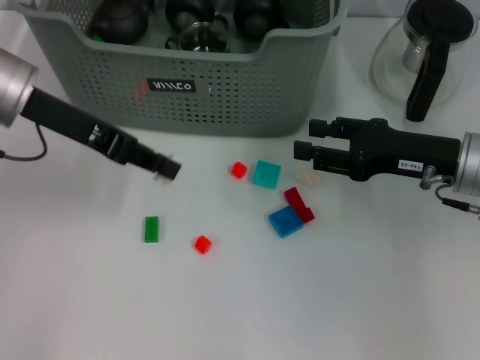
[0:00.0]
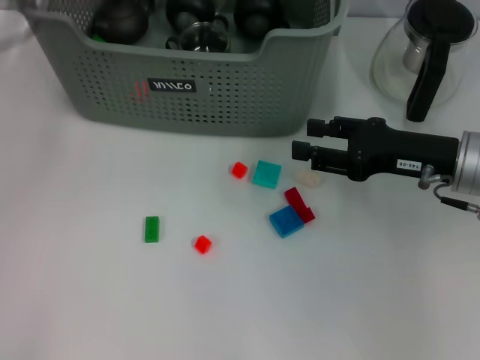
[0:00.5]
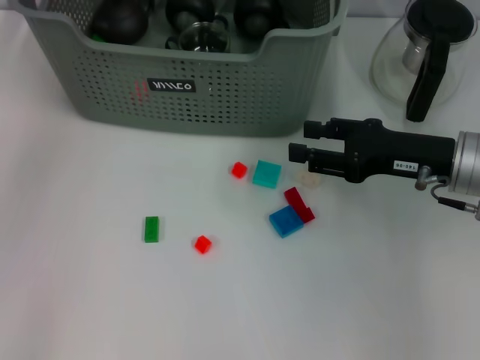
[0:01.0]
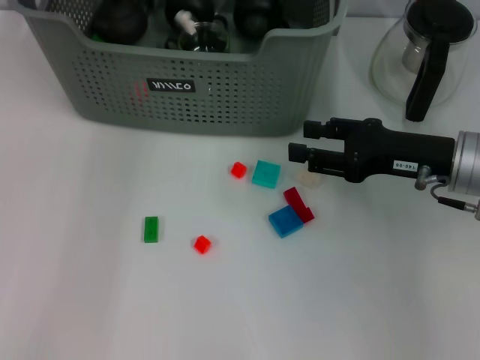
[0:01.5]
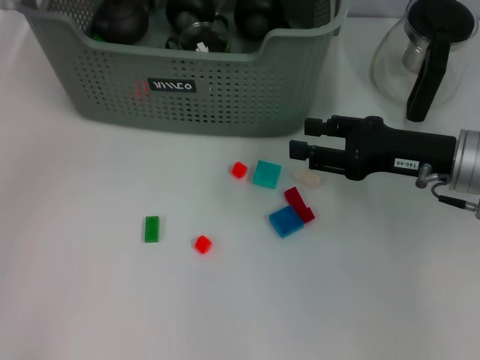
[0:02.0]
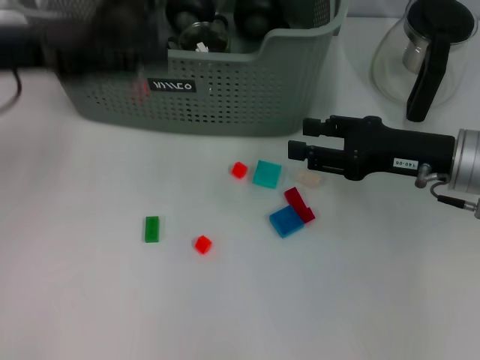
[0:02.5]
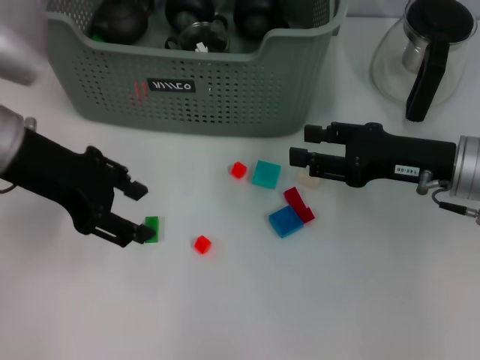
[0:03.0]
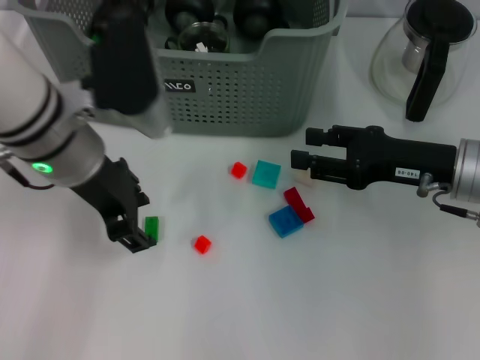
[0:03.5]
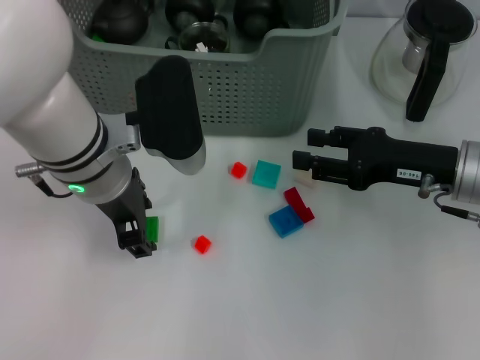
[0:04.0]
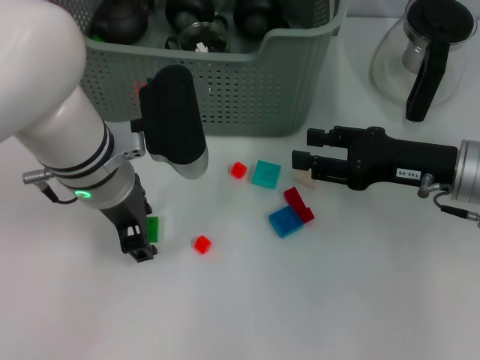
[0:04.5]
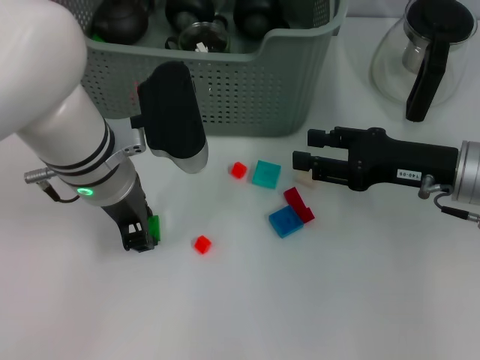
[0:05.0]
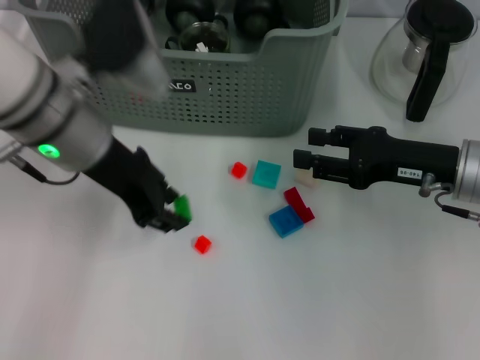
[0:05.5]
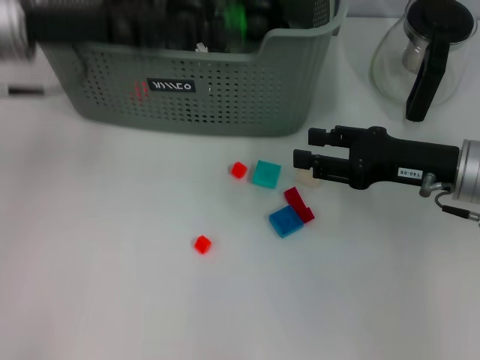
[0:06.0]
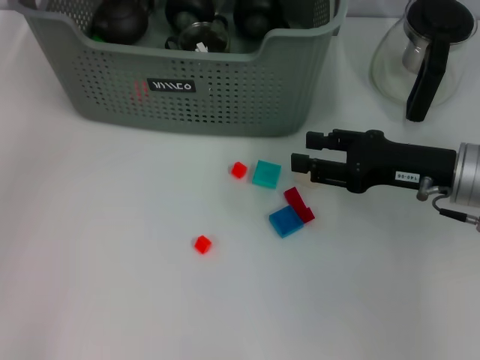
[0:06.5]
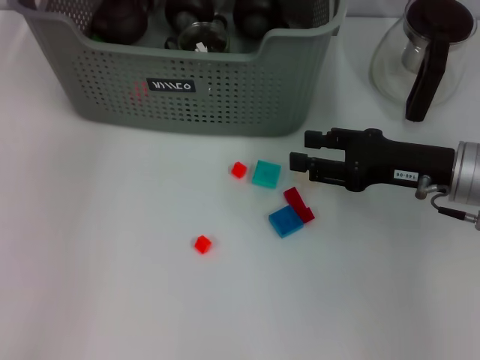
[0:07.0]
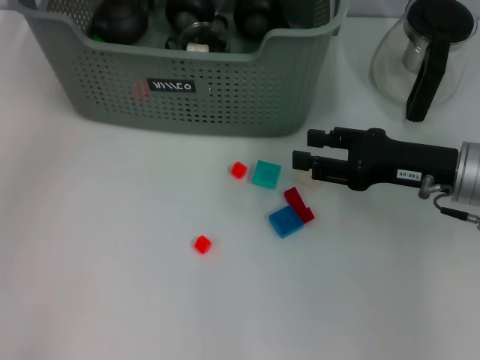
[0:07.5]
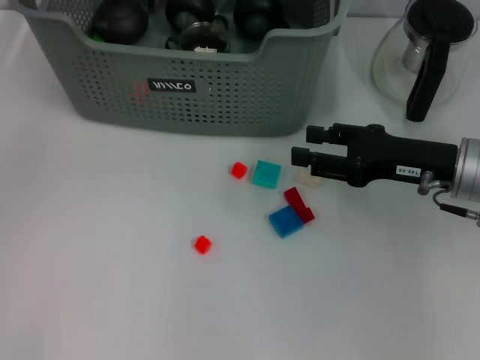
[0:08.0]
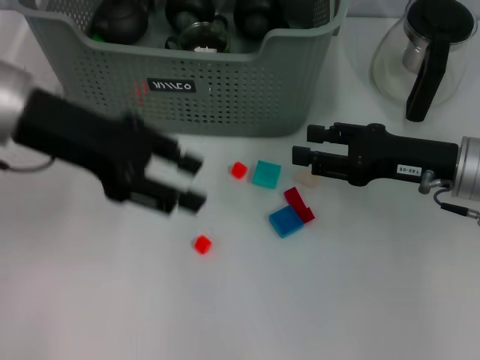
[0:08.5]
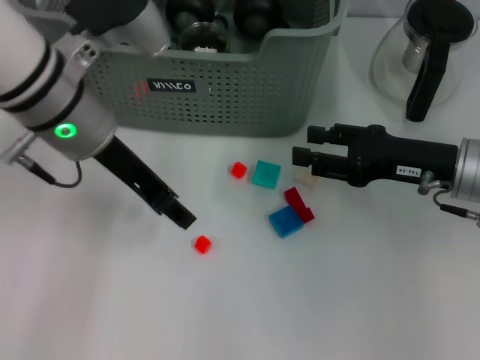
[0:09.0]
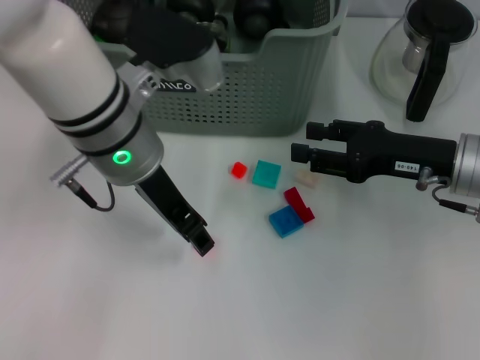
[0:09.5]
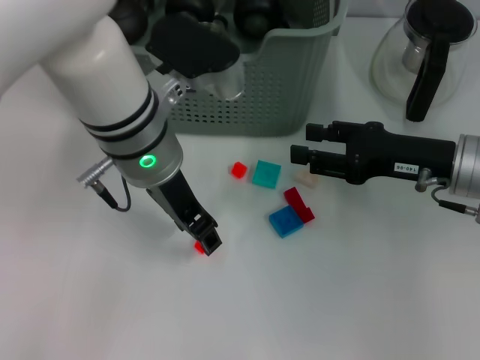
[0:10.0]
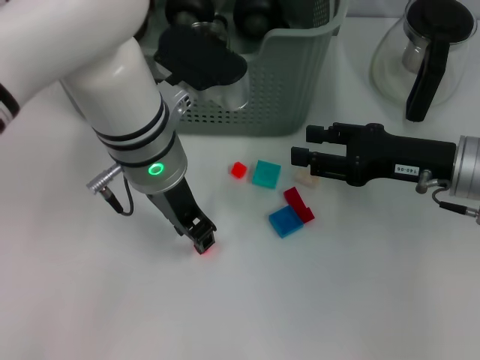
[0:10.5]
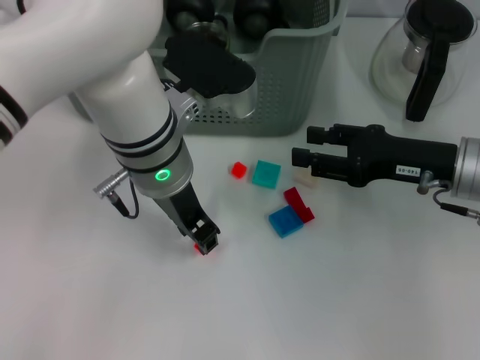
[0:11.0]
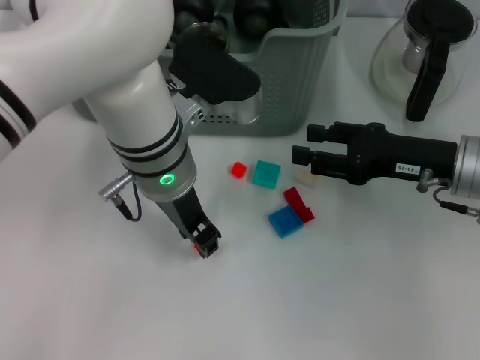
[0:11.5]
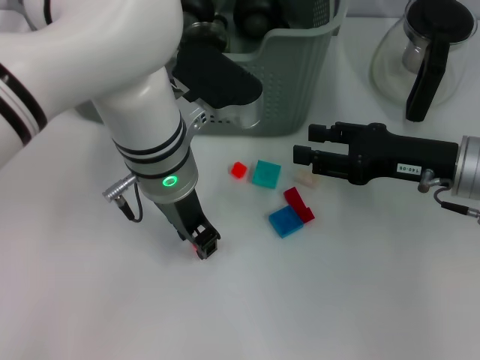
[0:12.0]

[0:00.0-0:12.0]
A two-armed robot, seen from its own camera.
Task of the whole recording: pick up the teacup on the table and place it into the storage bin, pick up the block on the table and place it into the storage bin.
Step, 0:00.0 to 0:01.5: Place the white block in the storage box with left gripper.
Step, 0:02.0 to 0:05.0: Grasp the green block with left gripper.
Step, 0:05.5 to 0:07.0: Place the green block in the storage box with left gripper.
0:00.0 to 0:02.0: The left gripper goes roughly 5 cm upward, and opens up.
0:02.0 to 0:04.0: The left gripper is displaced to the right, downward and backward by roughly 15 cm.
0:04.0 to 0:06.0: The left gripper goes about 10 cm to the left and upward.
0:06.0 to 0:08.0: The left gripper shifts some 5 cm to the left, and goes forward and returns, approximately 10 cm each way.
0:08.0 to 0:10.0: The left gripper heads to the right and downward, covering approximately 20 cm.
0:10.0 to 0:12.0: The grippers make only small movements.

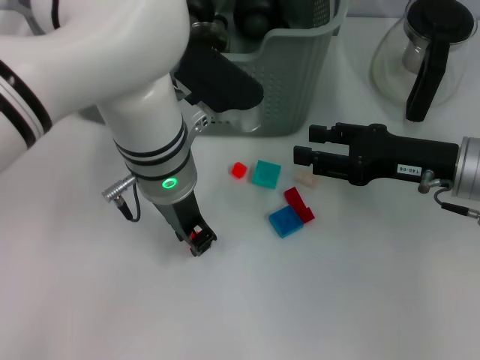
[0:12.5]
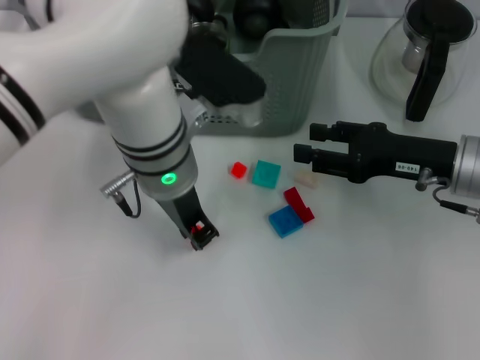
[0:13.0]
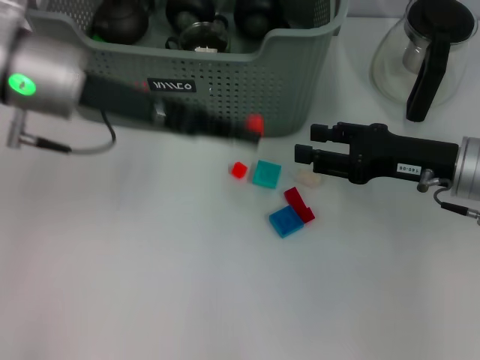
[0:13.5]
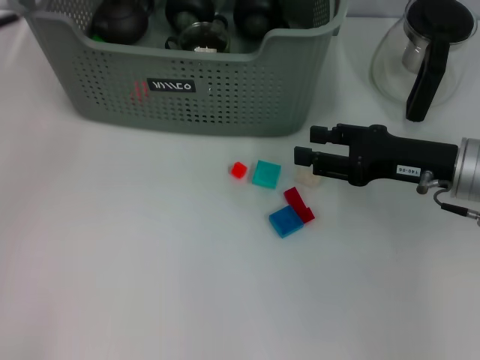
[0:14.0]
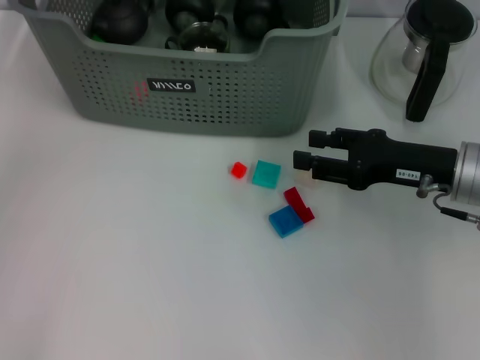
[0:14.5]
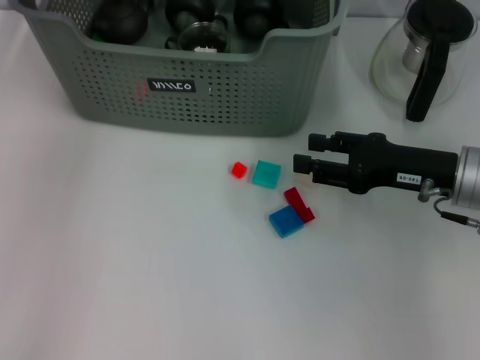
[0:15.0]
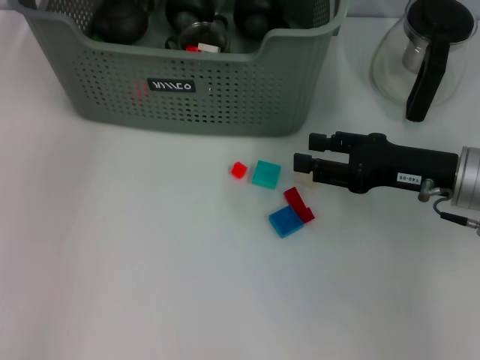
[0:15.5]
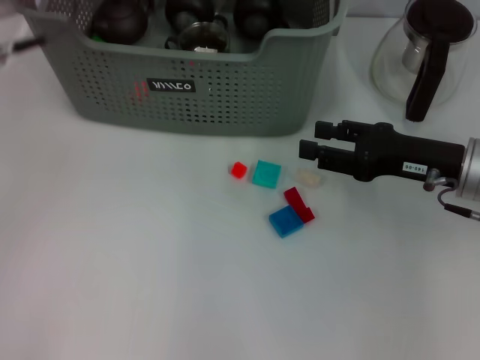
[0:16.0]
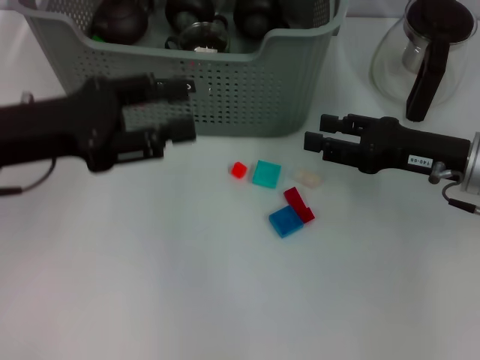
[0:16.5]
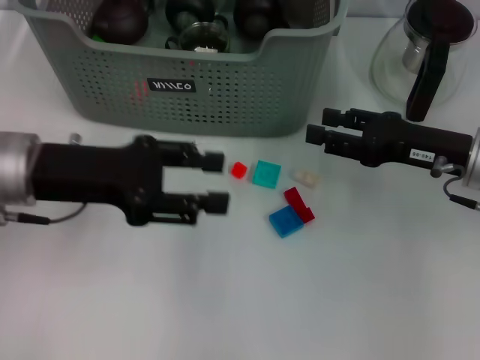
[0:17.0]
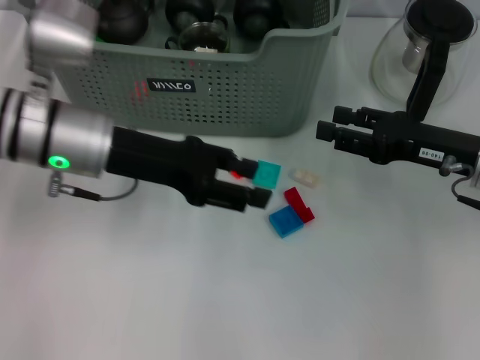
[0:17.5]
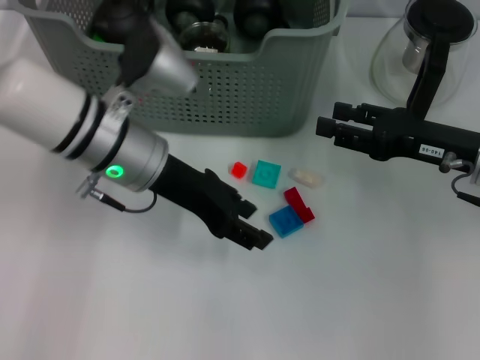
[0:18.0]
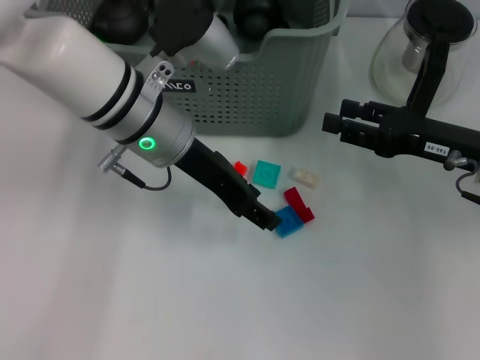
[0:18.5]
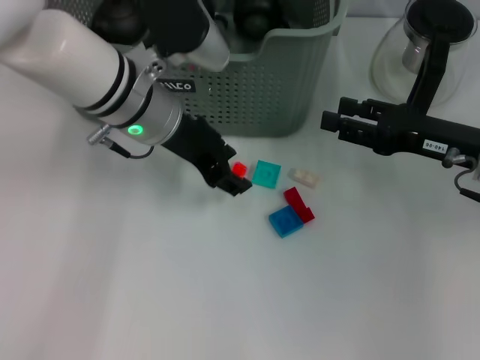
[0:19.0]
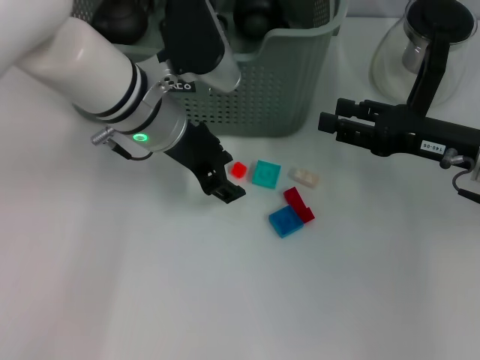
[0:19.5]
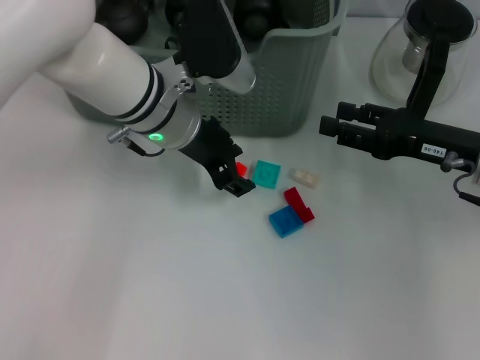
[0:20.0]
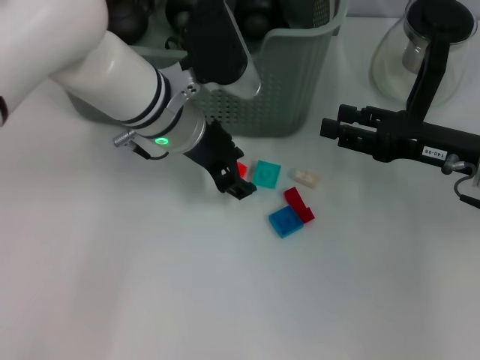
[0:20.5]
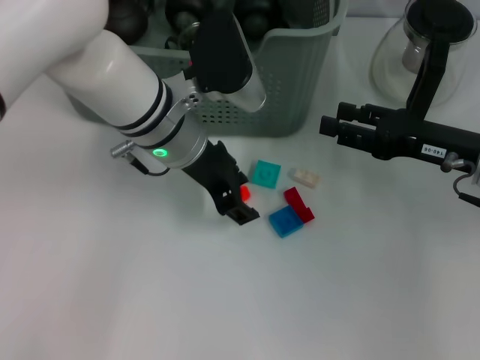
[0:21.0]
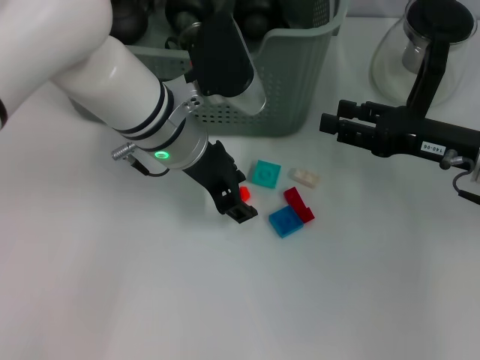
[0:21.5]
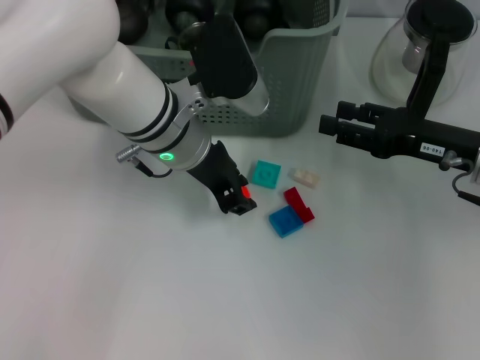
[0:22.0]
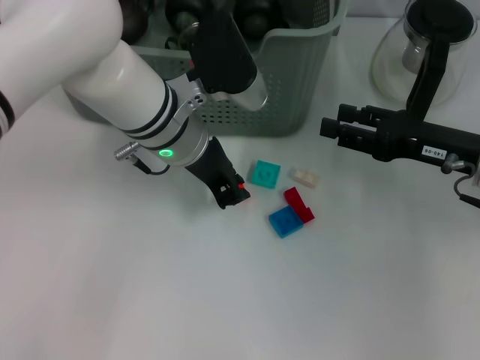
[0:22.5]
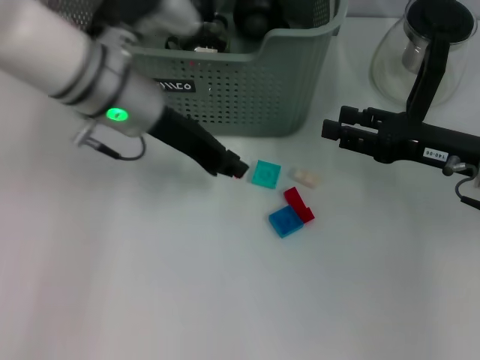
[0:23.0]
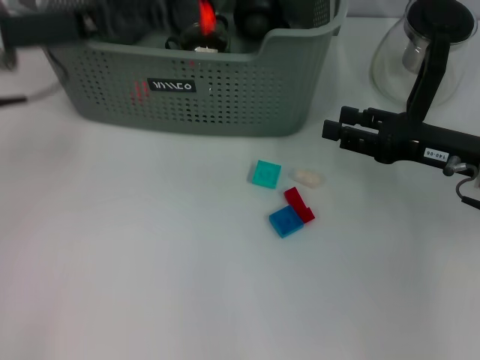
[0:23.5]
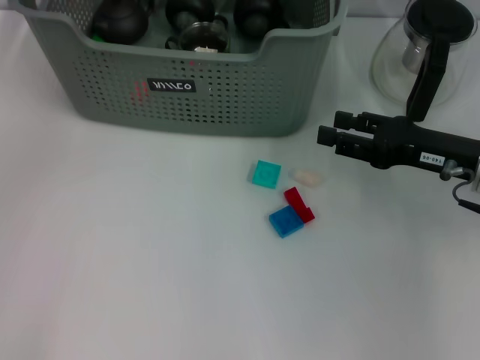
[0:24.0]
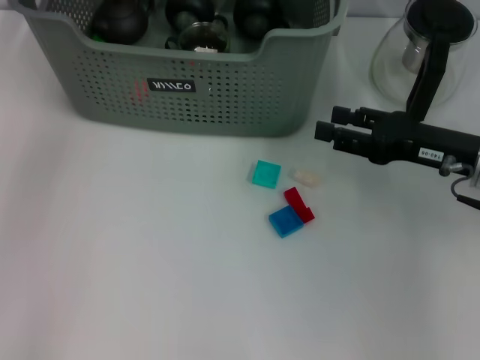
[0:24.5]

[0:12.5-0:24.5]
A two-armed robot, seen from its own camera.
Task of the whole recording: pick up the teacup on the table and place it into the storage bin, pick up the block on the table and place it into the storage bin.
Step, 0:13.0 to 0:15.5: Place the orange block in the storage box with left gripper.
Step, 0:16.0 to 0:22.0: Grasp the orange block with left gripper.
0:12.5 to 0:14.5: The left gripper moves to the left, upward and forward, about 25 cm.
0:14.5 to 0:16.5: The left gripper shifts roughly 20 cm backward and downward, and opens up.
0:16.5 to 0:18.5: The left gripper travels to the right and forward by roughly 15 cm.
0:20.5 to 0:22.5: The left gripper closes up.
0:22.5 to 0:24.5: The left gripper moves to the left, upward and forward, some 20 cm.

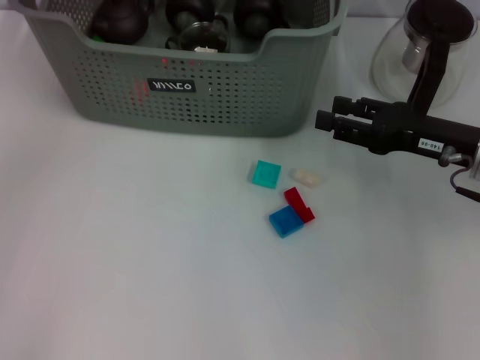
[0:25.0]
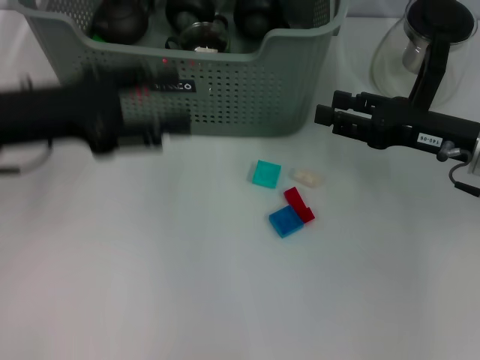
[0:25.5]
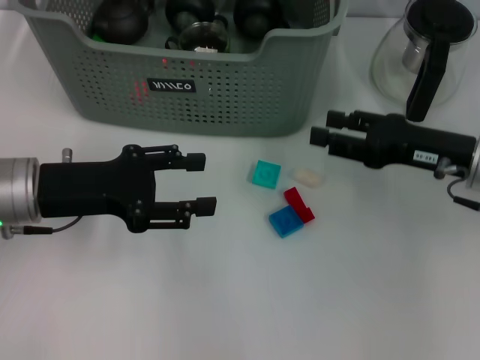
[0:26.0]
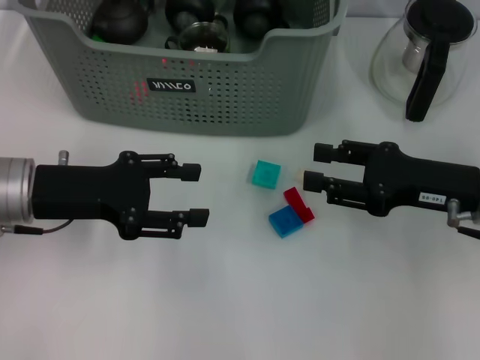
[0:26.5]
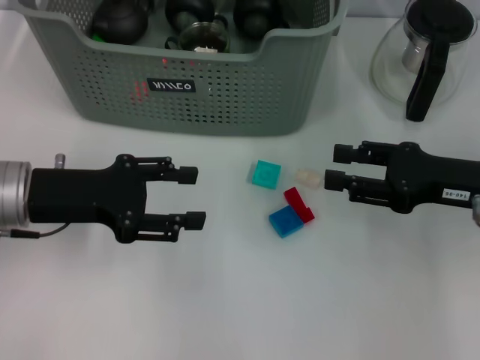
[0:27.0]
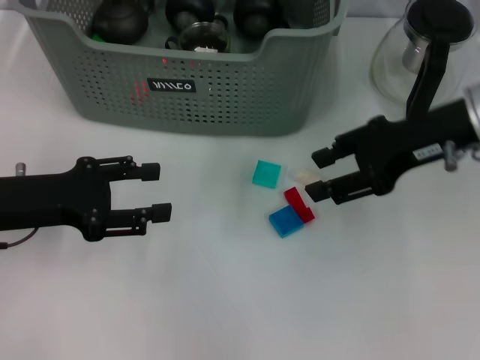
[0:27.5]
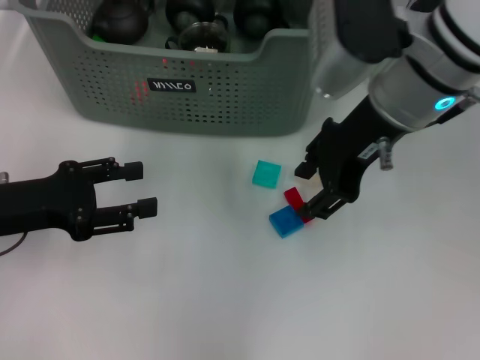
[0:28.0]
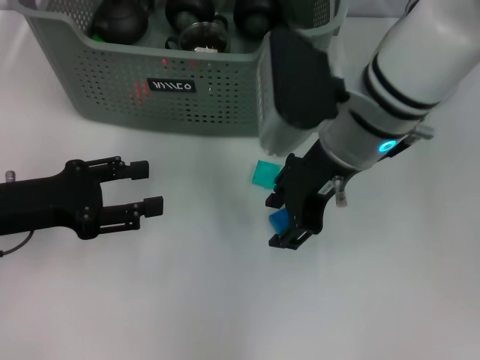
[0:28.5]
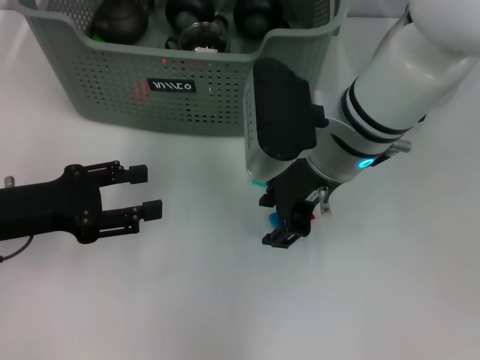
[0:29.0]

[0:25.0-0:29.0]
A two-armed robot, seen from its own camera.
Task of the whole recording: pick up the teacup on the table and place it into the storage bin, pick up the block on the table and place it into the storage bin.
0:25.0 to 0:27.0: The left gripper goes approximately 20 cm downward and backward.
0:27.0 to 0:29.0: The right gripper goes roughly 20 cm to the left.
